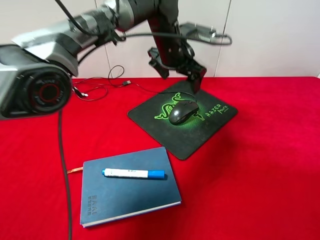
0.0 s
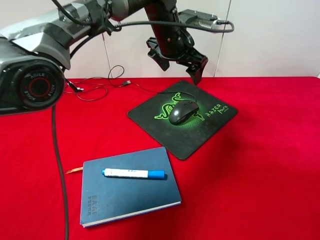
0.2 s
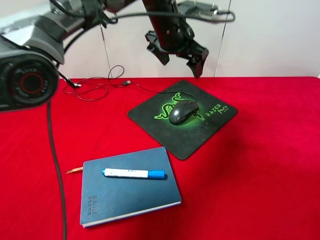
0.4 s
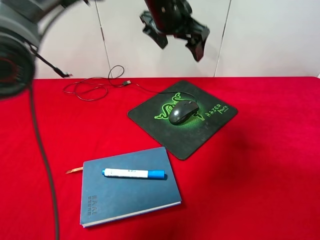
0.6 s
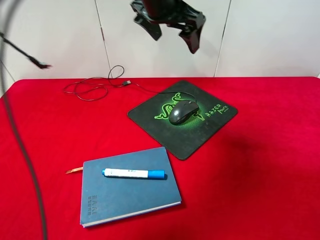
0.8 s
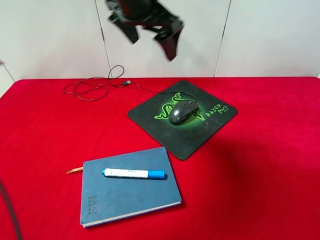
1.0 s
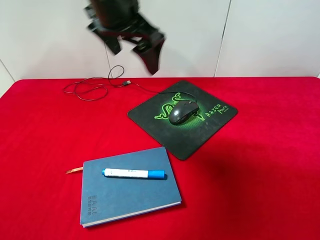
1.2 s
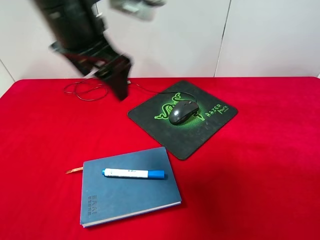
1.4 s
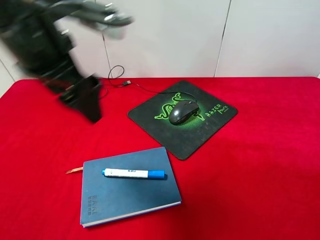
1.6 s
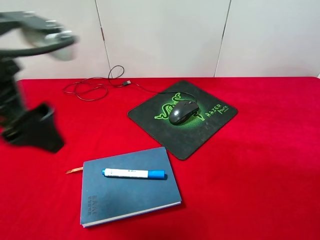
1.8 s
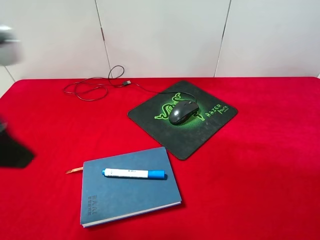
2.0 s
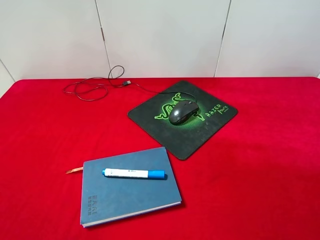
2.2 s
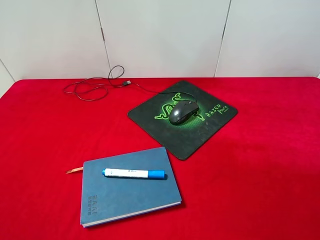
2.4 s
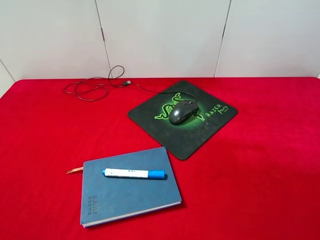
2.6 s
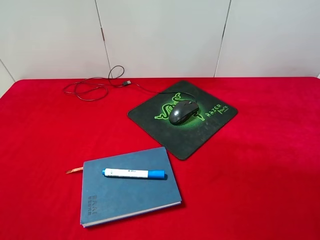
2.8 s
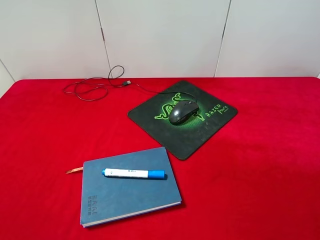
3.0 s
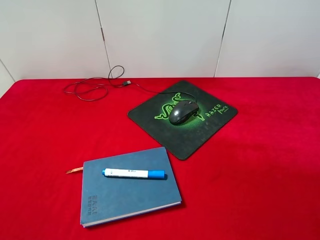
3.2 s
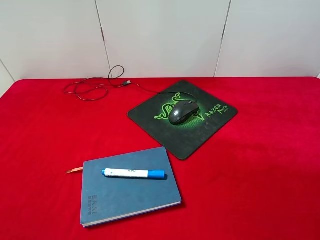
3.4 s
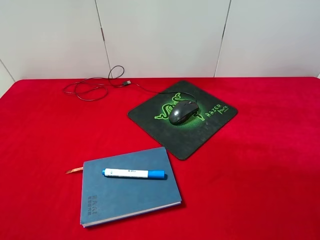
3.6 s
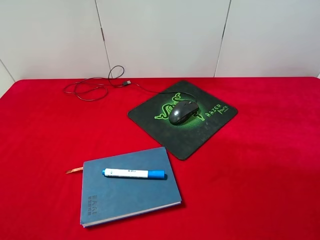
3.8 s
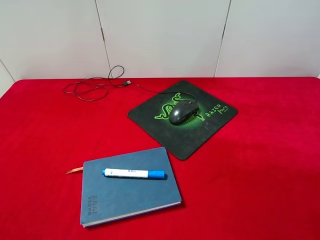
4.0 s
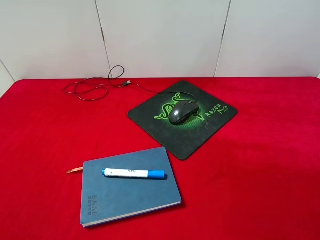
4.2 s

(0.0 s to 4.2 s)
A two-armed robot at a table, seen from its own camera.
0.0 s - 1.4 s: The left gripper moves backward, to the left and upward, some 25 cm.
1.4 s - 2.8 s: The left gripper shifts about 30 cm backward and to the left.
